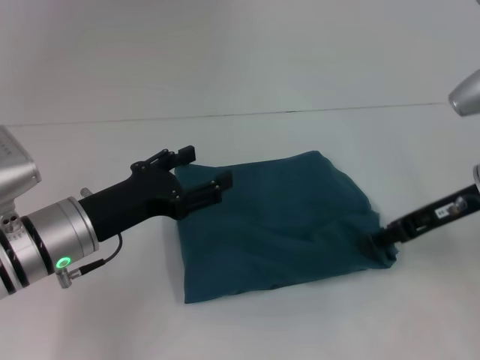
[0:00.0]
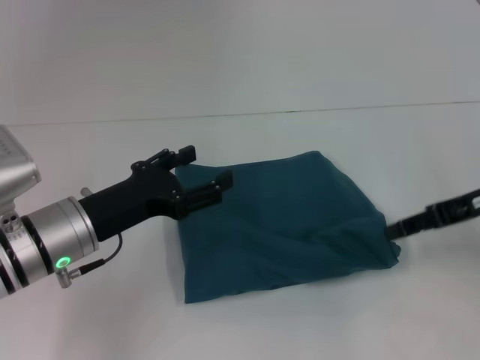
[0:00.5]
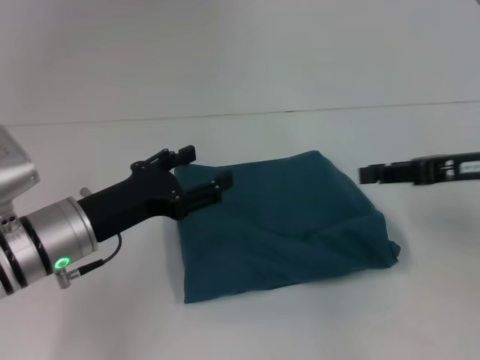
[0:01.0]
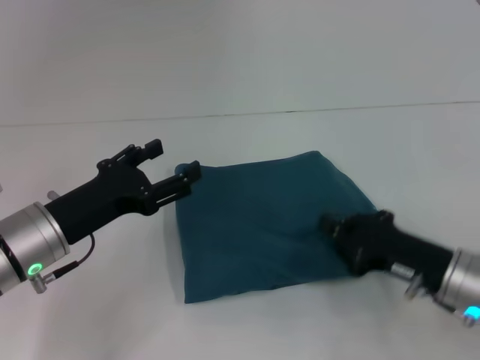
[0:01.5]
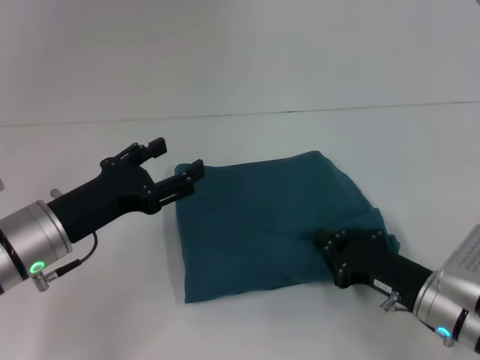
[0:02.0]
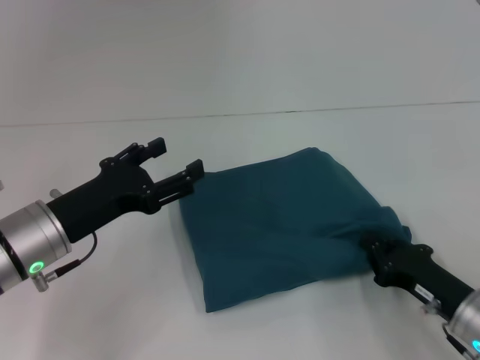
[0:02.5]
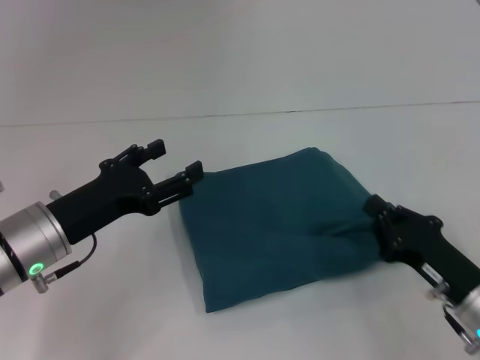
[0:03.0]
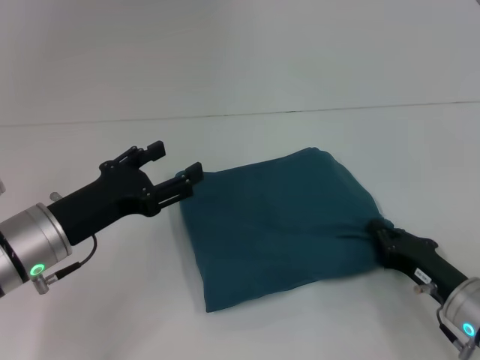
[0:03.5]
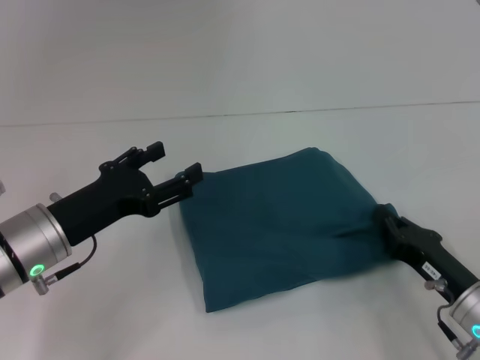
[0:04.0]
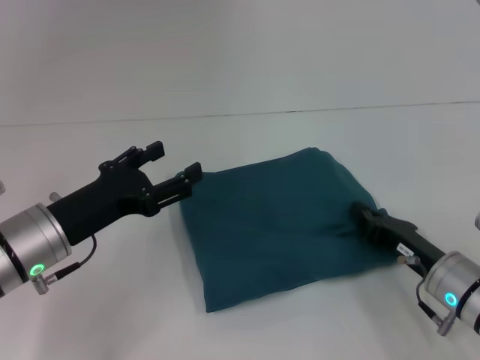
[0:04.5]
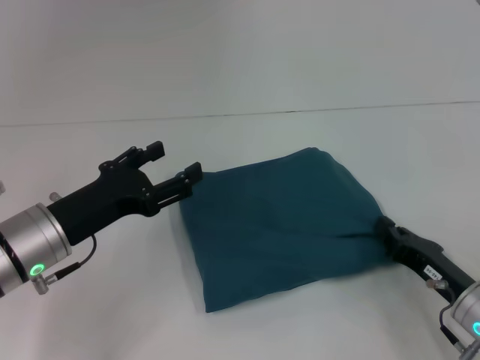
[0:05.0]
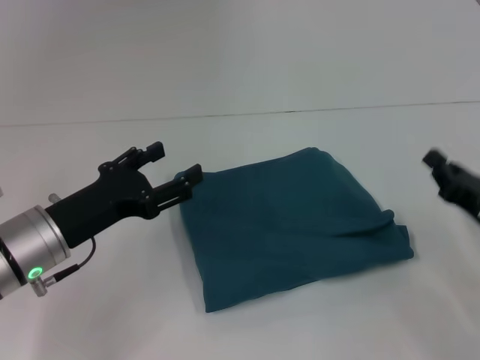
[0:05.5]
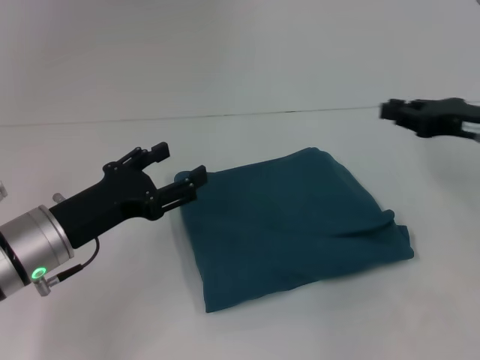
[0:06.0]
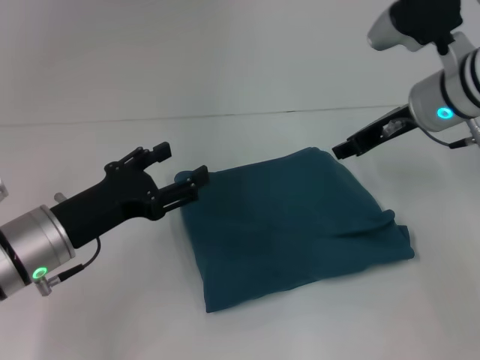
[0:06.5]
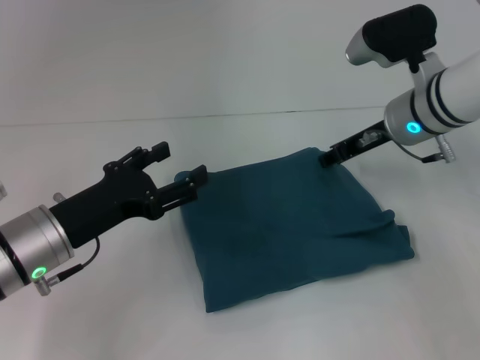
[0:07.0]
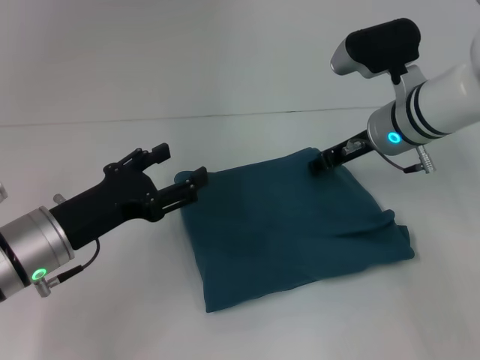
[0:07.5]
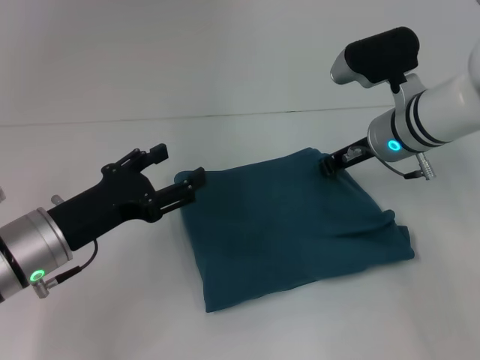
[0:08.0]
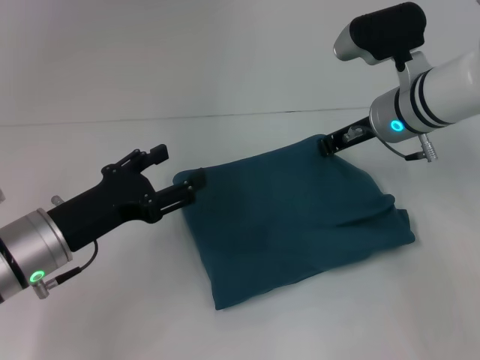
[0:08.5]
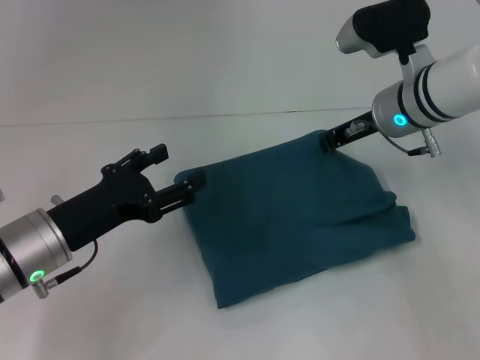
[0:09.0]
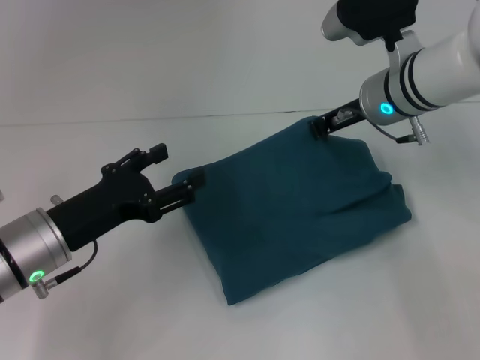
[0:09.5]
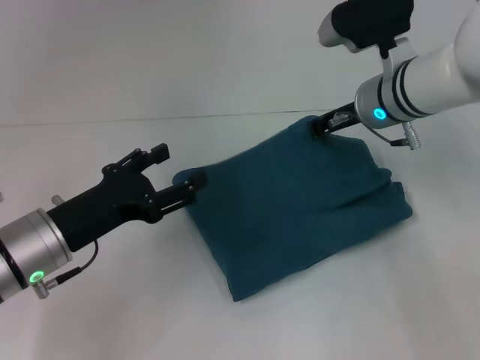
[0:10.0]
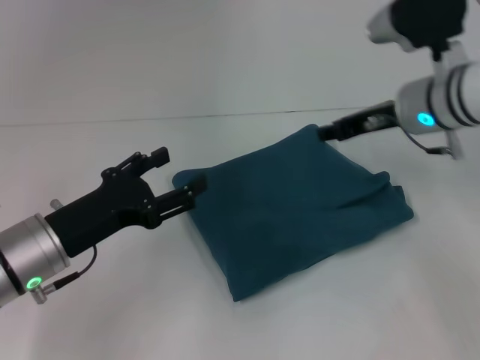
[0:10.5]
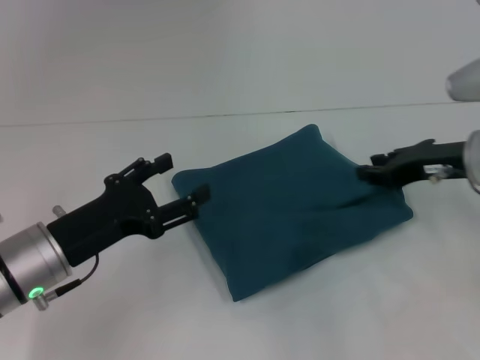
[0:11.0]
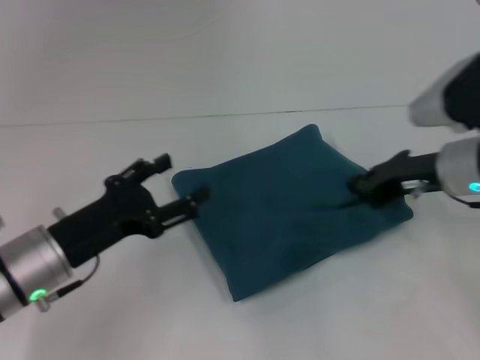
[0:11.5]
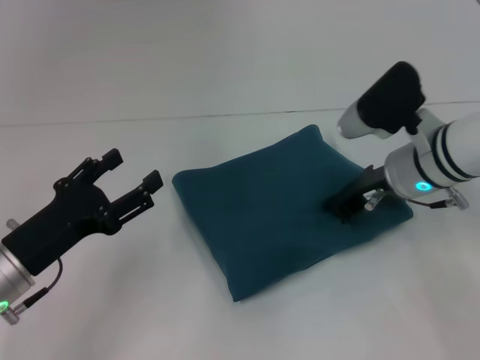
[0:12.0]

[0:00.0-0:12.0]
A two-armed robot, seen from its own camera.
0:00.0 to 0:02.0: The right gripper moves downward and backward, roughly 15 cm, and closes.
0:04.0 to 0:06.0: The right gripper goes approximately 20 cm upward, forward and to the right.
0:06.0 to 0:08.0: The right gripper goes some 15 cm to the left and forward.
0:08.0 to 0:10.0: There are only small adjustments of the grippers.
0:10.0 to 0:12.0: The right gripper heads backward, covering about 5 cm, and travels to the right and back again, some 10 cm each way.

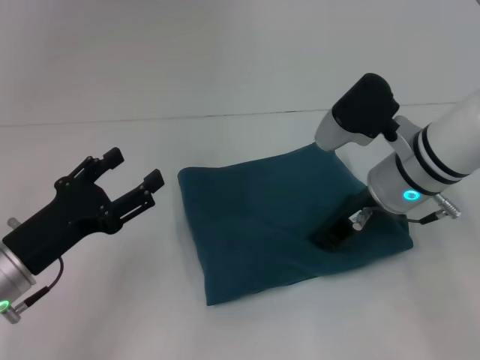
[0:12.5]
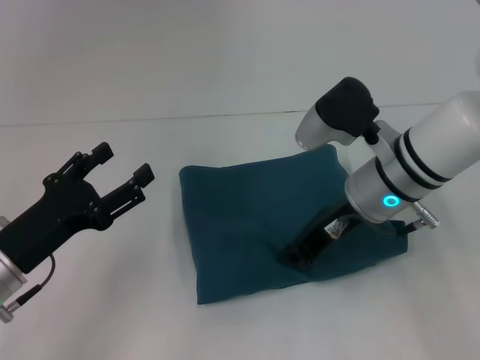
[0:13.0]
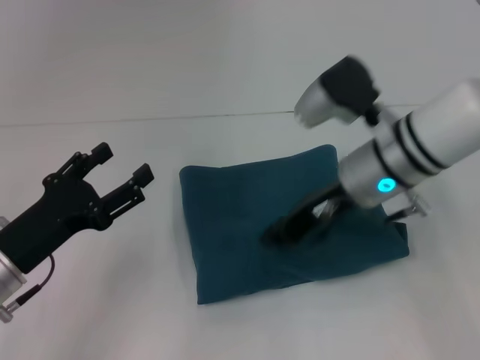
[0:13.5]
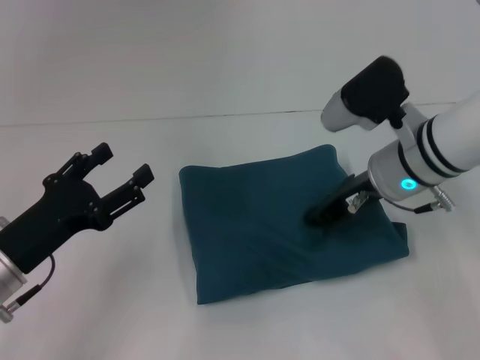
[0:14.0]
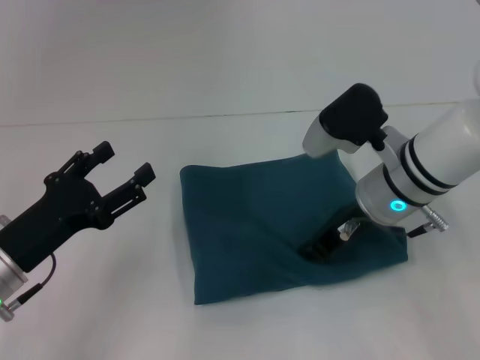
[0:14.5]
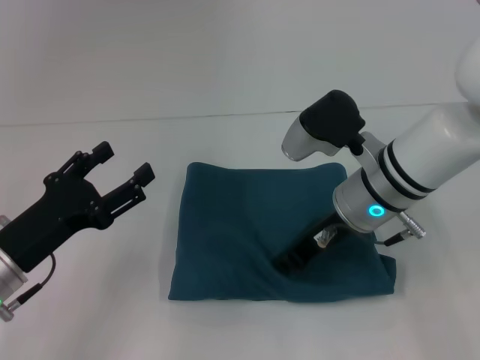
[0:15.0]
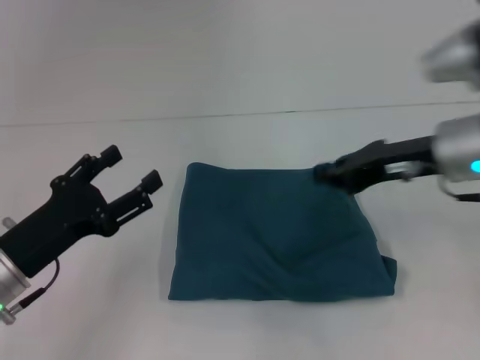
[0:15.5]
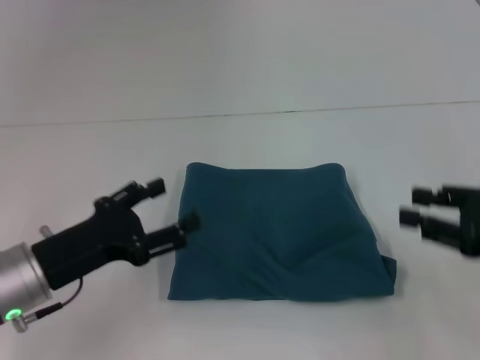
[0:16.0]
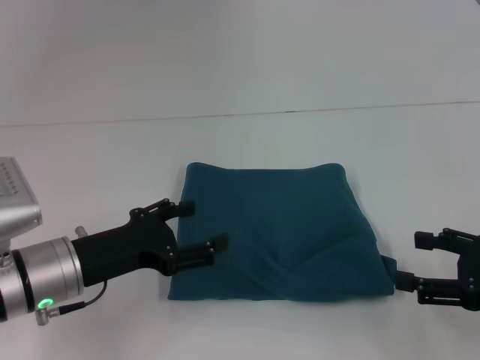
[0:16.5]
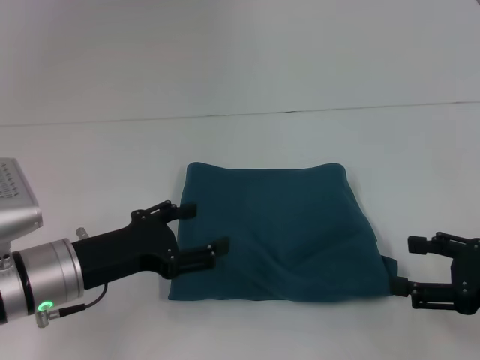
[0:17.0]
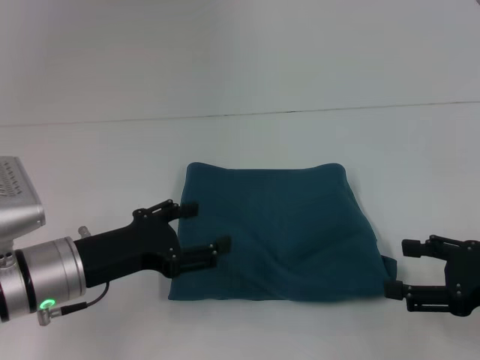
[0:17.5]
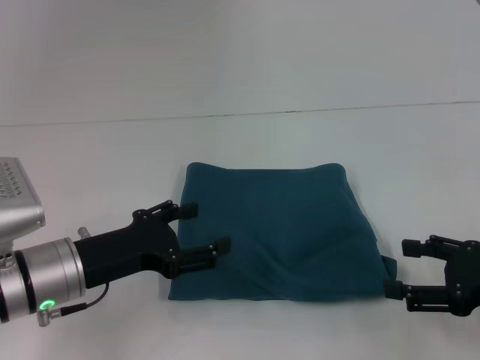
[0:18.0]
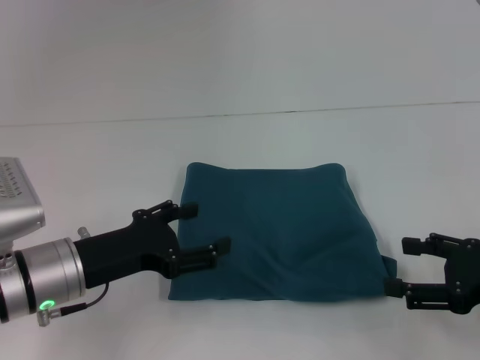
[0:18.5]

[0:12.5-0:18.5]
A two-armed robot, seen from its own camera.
0:12.5 to 0:14.5: There are only small adjustments of the grippers.
0:14.5 to 0:16.5: The right gripper goes about 20 cm to the right and backward, and opens.
0:16.5 to 0:18.5: The two grippers keep their place.

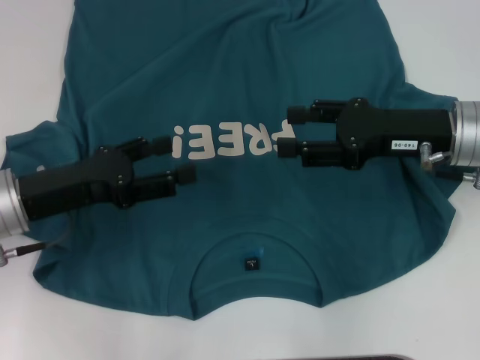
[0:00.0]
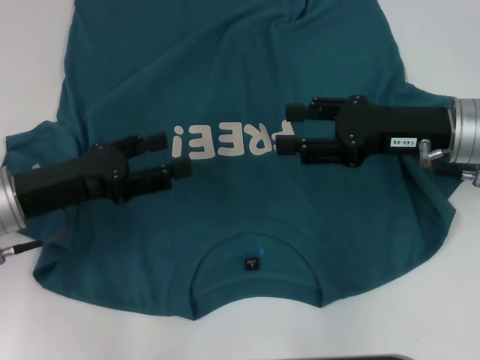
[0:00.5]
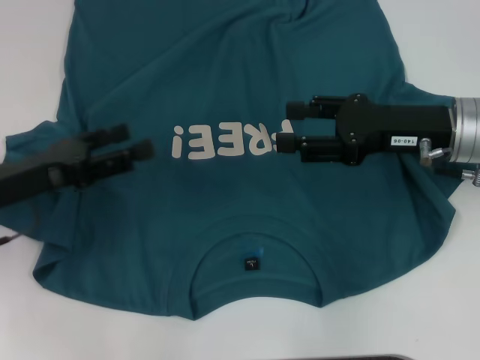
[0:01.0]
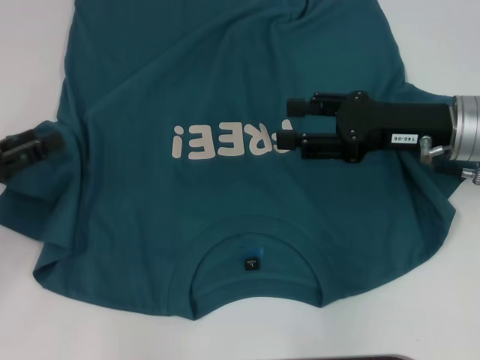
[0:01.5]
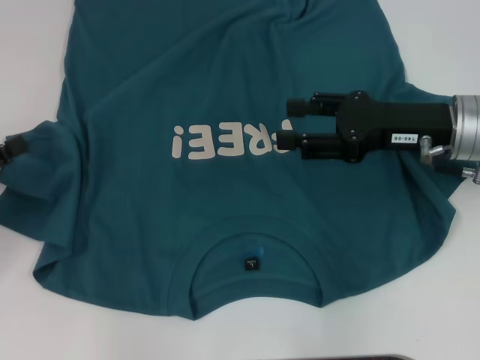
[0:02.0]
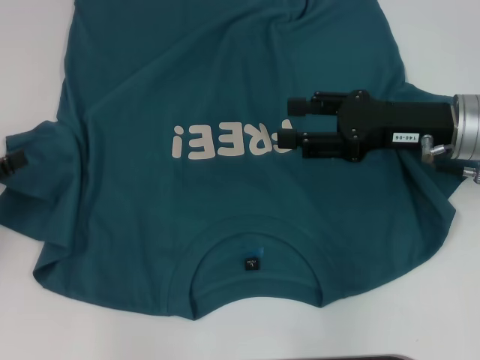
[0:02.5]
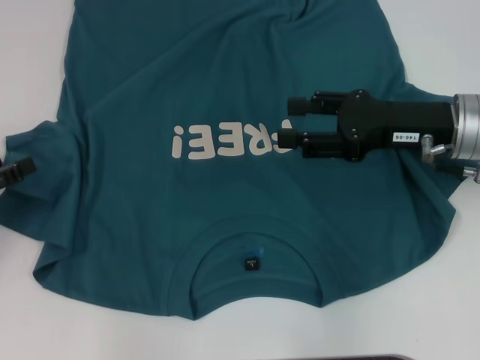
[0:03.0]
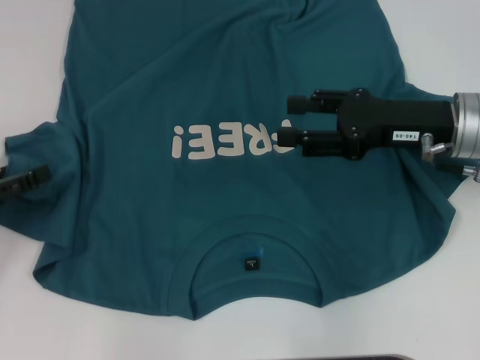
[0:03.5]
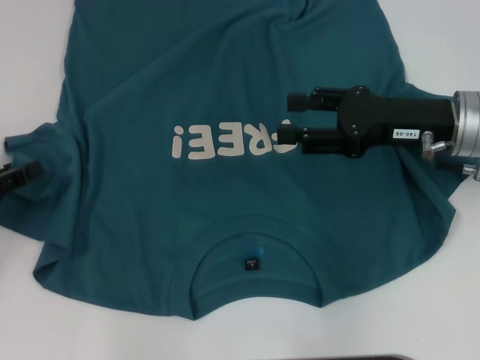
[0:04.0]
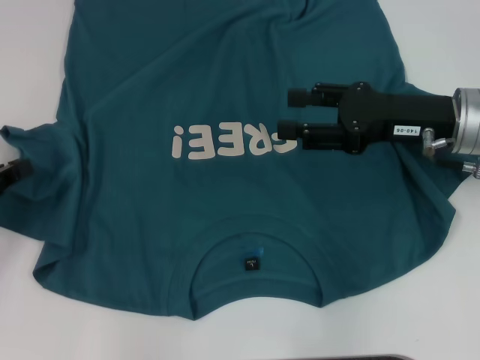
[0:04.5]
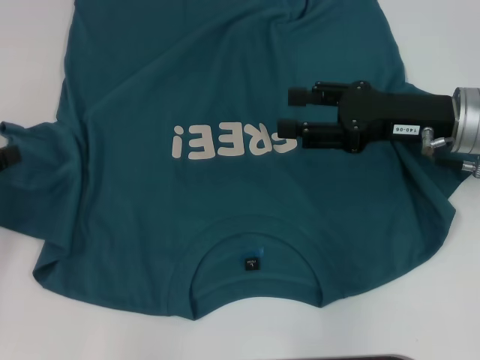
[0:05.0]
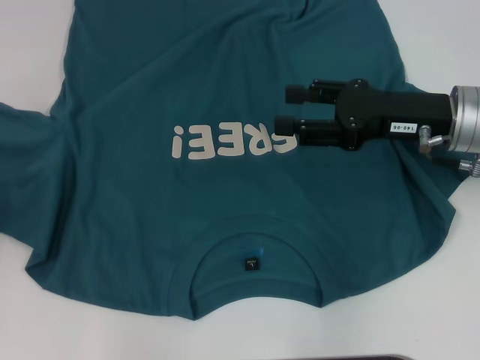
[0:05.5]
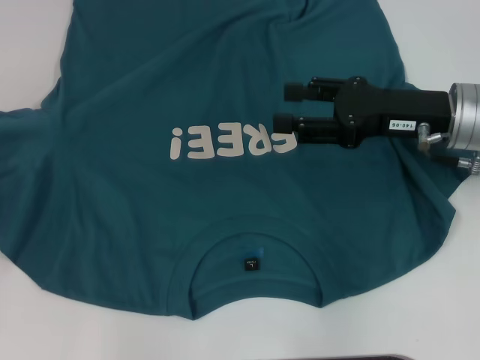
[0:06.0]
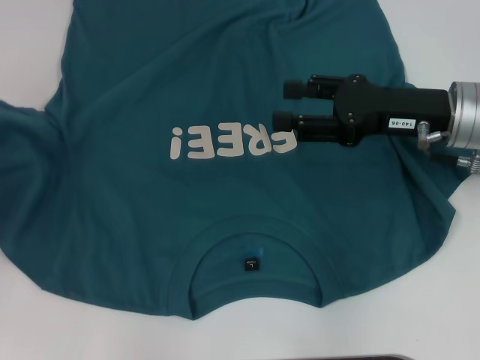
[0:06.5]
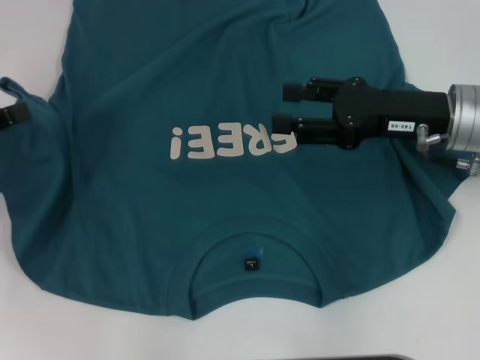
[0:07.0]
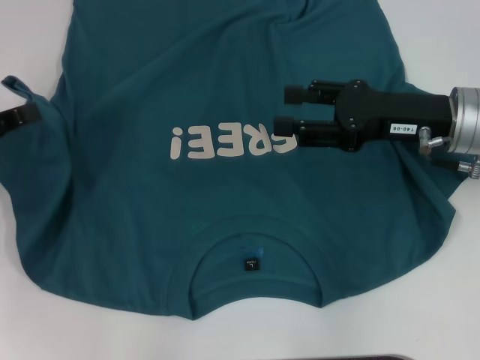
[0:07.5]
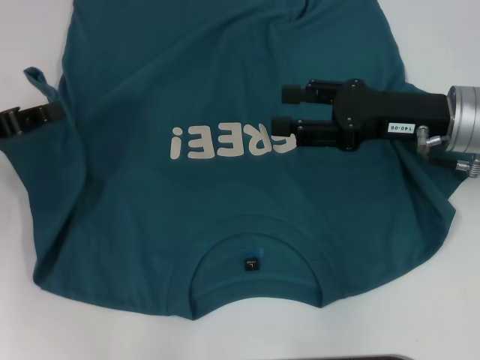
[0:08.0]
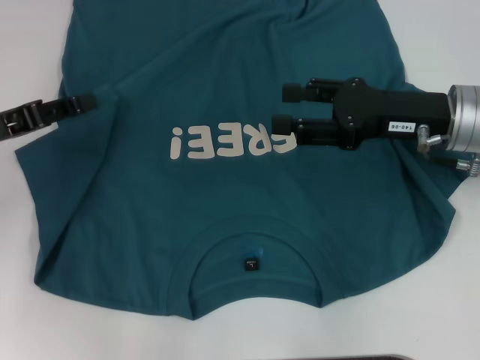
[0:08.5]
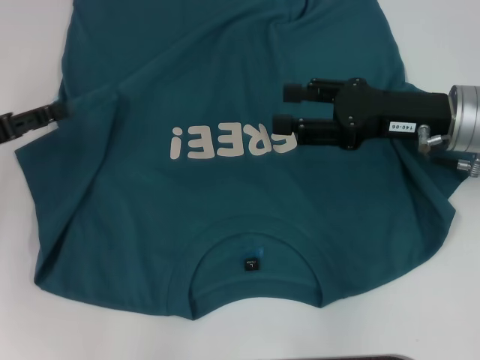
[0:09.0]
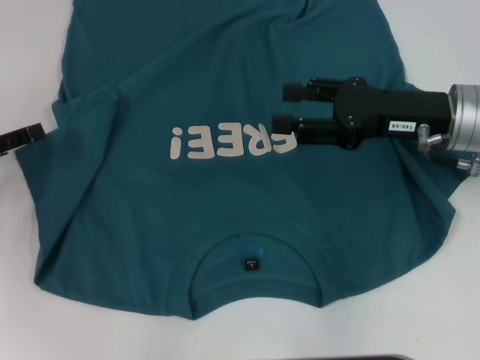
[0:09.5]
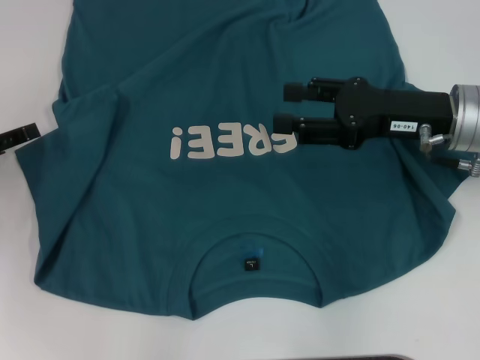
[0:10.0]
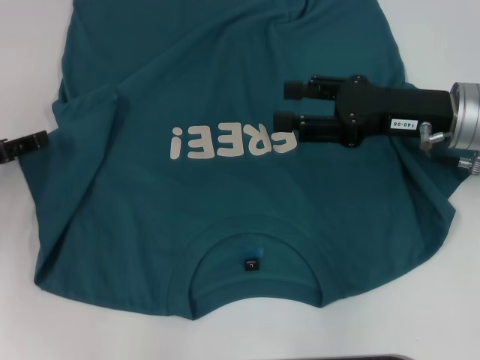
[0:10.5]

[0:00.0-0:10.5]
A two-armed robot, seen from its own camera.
0:00.0 to 0:02.0: The left gripper travels to the left by some 15 cm.
0:02.0 to 0:04.0: The grippers move only a little.
0:04.0 to 0:06.5: The left gripper shifts some 5 cm upward, and closes its fingers.
0:06.5 to 0:08.5: The left gripper travels to the right by roughly 5 cm.
0:08.5 to 0:10.5: The left gripper moves about 5 cm, and opens.
